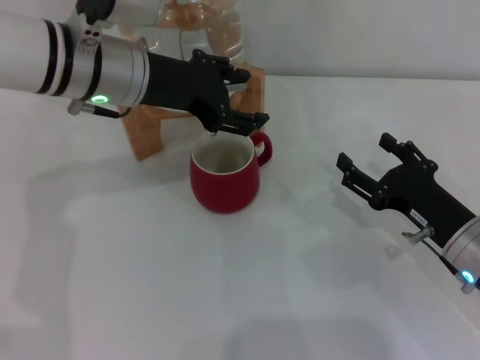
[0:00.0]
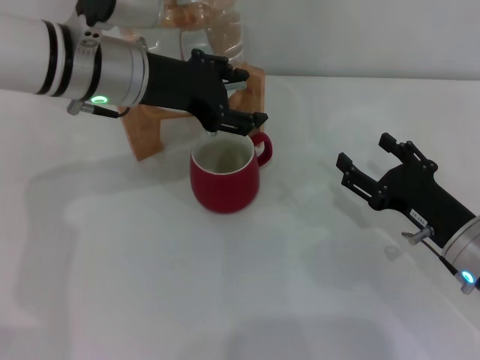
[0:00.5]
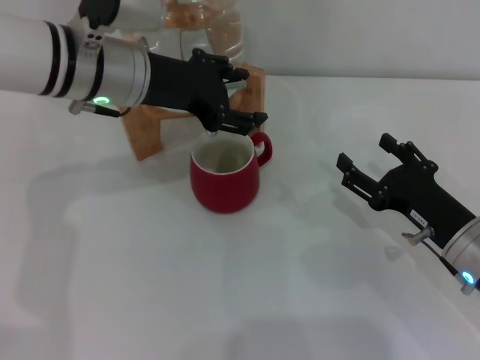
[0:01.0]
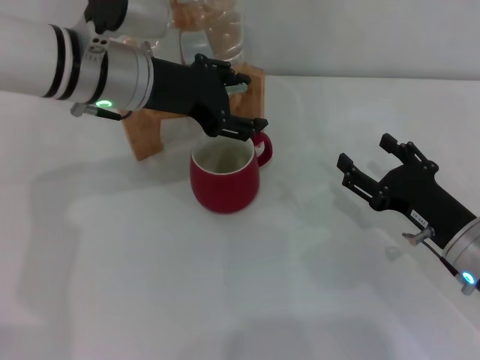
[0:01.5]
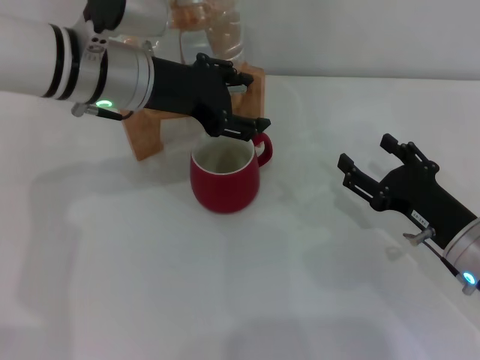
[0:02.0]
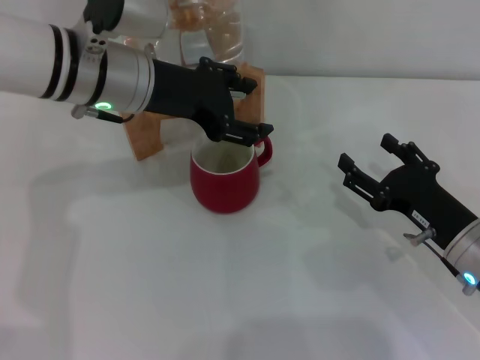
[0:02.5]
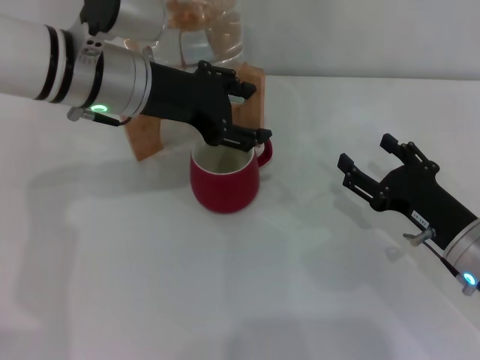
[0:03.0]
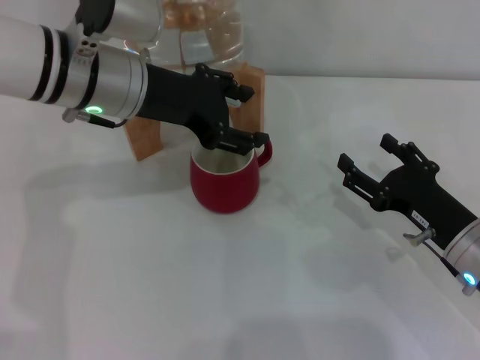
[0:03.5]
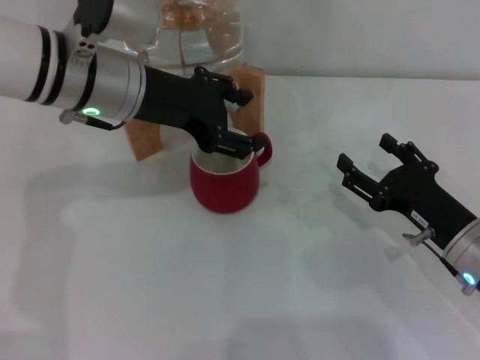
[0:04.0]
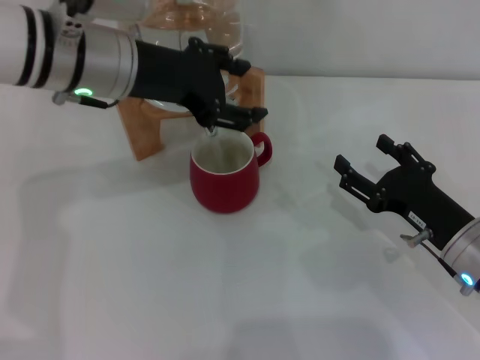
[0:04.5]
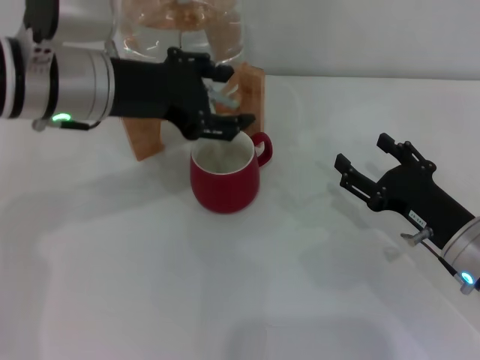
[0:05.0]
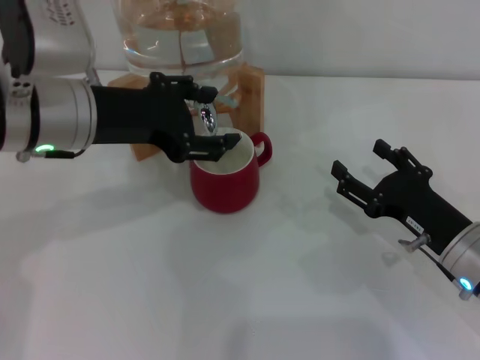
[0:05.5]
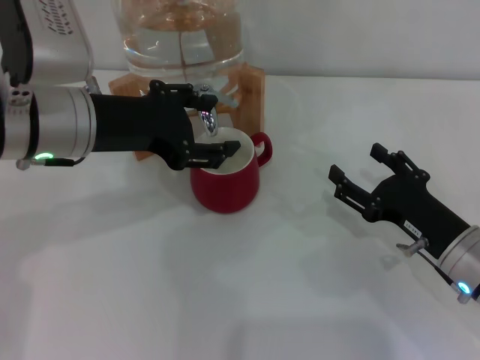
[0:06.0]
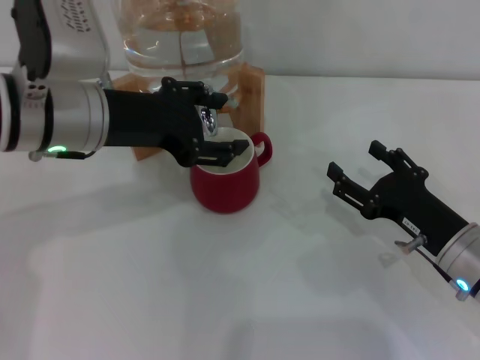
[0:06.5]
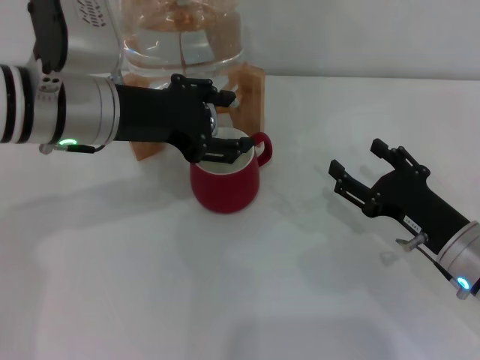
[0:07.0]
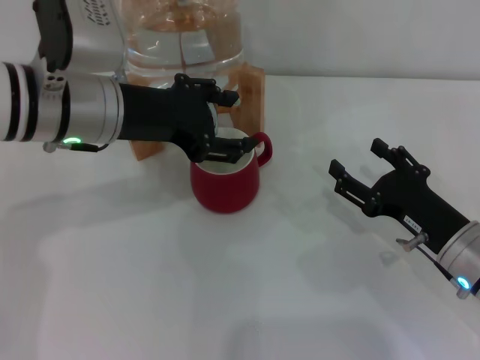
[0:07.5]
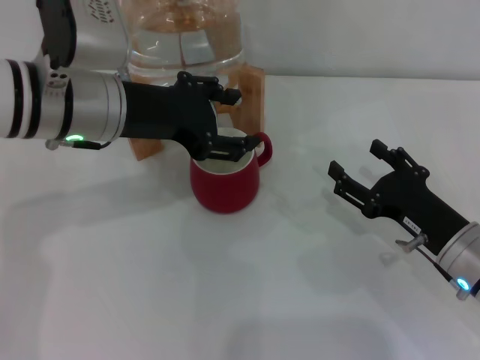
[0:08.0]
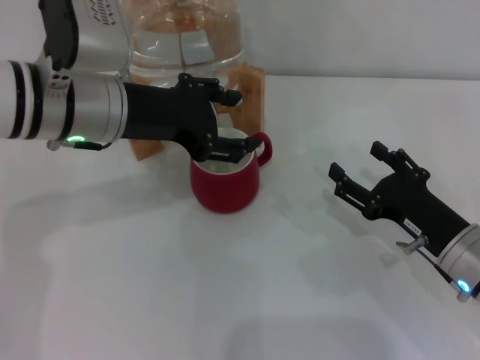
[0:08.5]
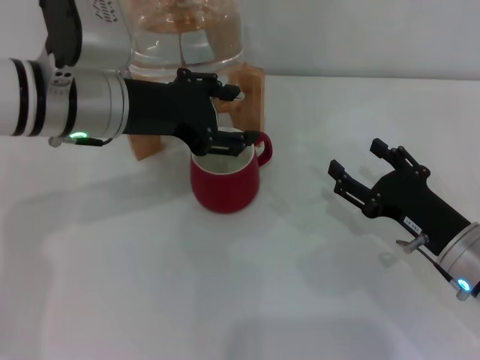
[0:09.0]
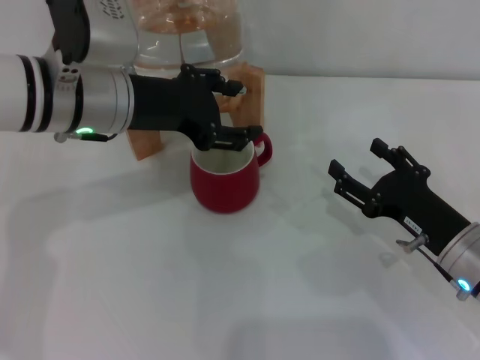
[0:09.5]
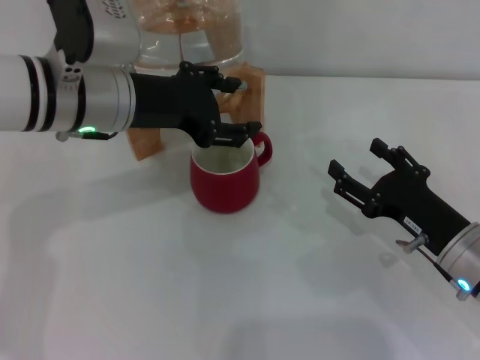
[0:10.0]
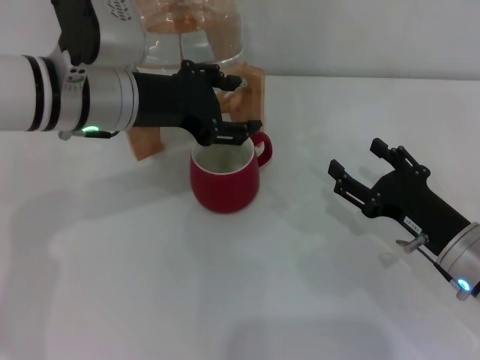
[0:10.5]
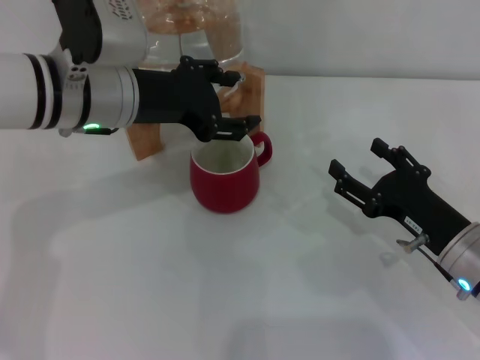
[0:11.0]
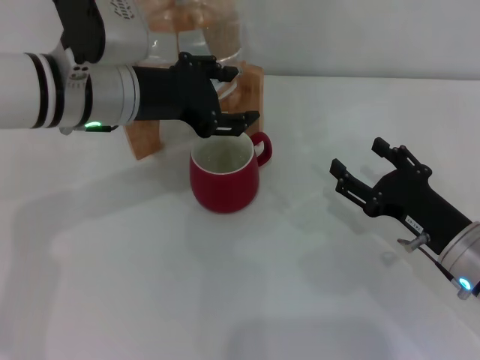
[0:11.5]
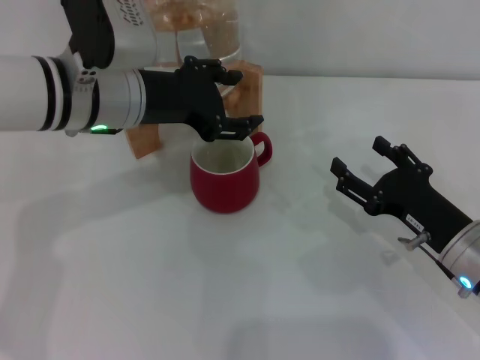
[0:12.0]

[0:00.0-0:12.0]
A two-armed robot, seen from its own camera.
Task of the whole recording: the right gripper pick up the red cup and place it horizontally under the faucet, the left gripper turn on the faucet to fill the cup, and then turn off the faucet.
Step, 0:00.0 to 0:05.0: Open the dispenser valve and fill the cup with water with the left gripper.
0:00.0 to 0:02.0: Neither gripper changes place.
0:02.0 to 0:04.0: The grippers make only small movements.
0:04.0 to 0:06.0: The left gripper moves approximately 5 cm.
0:06.0 to 0:08.0: There are only small adjustments of the grippers.
0:08.0 to 0:10.0: The two grippers keep their place.
0:10.0 to 0:12.0: Both grippers stay about where they are.

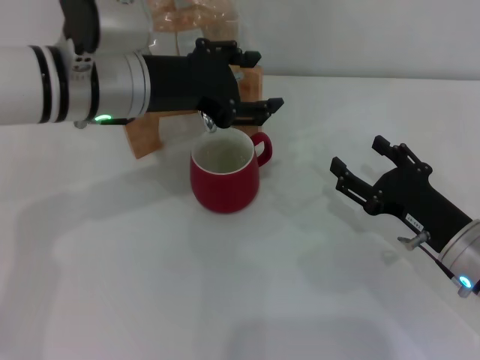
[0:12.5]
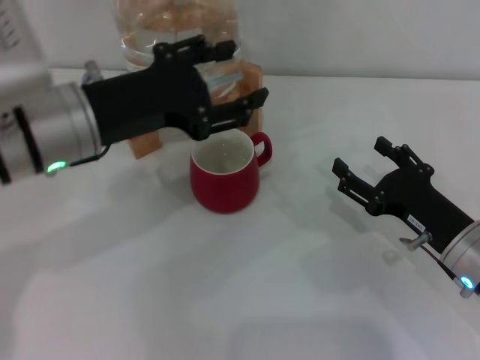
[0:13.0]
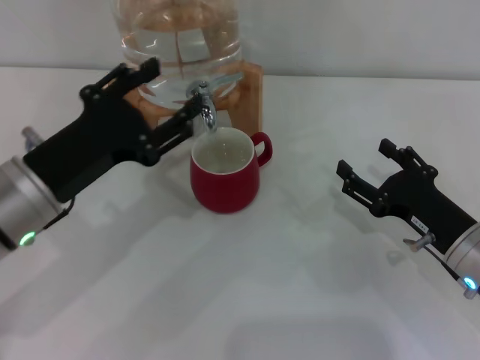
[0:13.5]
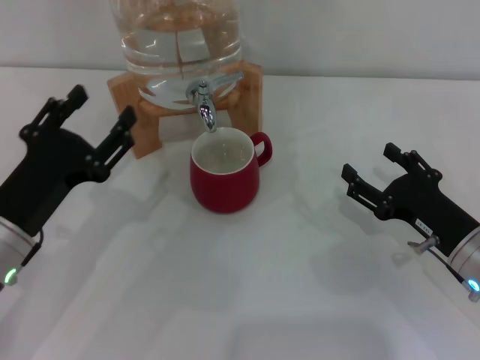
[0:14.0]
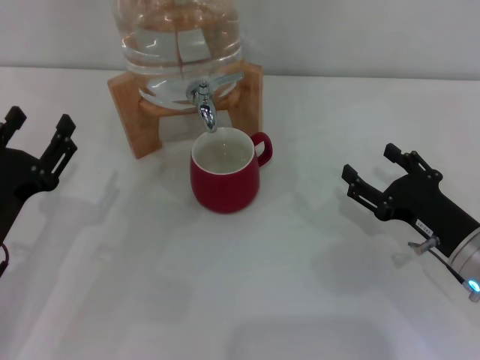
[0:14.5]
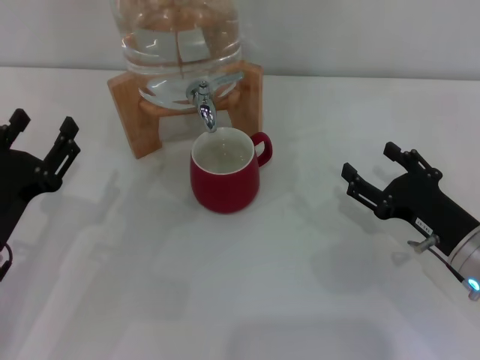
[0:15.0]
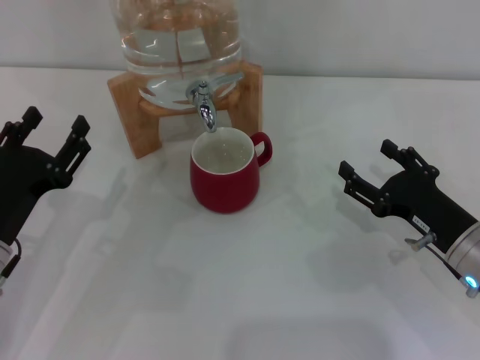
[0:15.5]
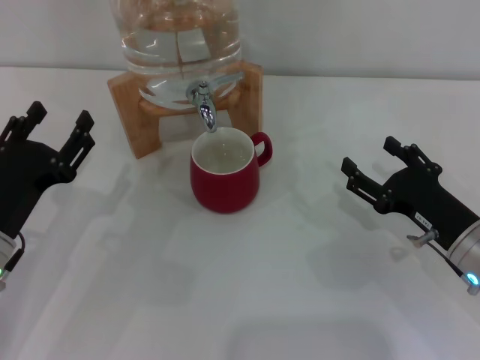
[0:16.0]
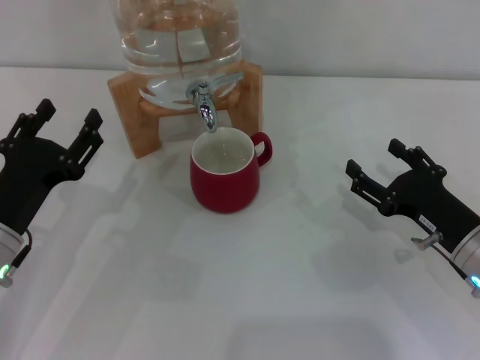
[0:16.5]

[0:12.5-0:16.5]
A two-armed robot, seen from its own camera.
Task of the whole recording: the right gripper pick up the red cup and place it horizontally under the faucet, the left gripper turn on the faucet to fill the cup, and then turn off the faucet.
0:12.5 to 0:14.5: The left gripper travels backward, downward and to the left by approximately 25 cm.
0:14.5 to 0:16.5: The grippers move only a little.

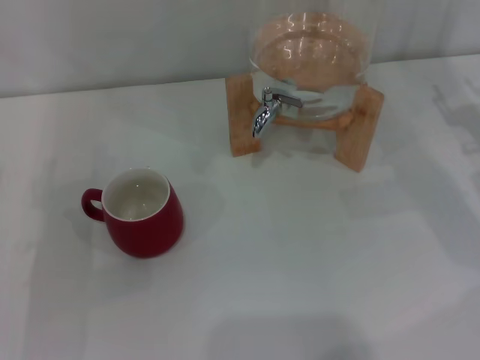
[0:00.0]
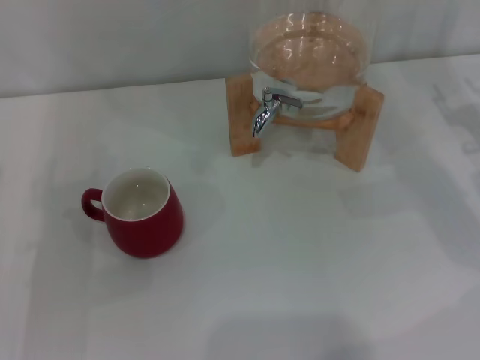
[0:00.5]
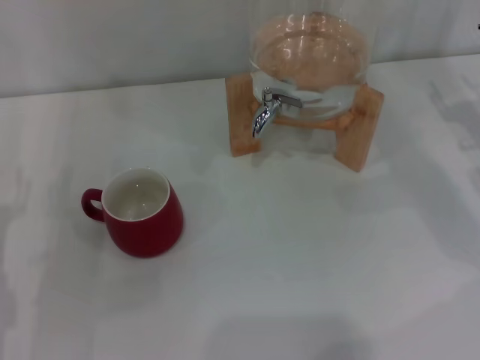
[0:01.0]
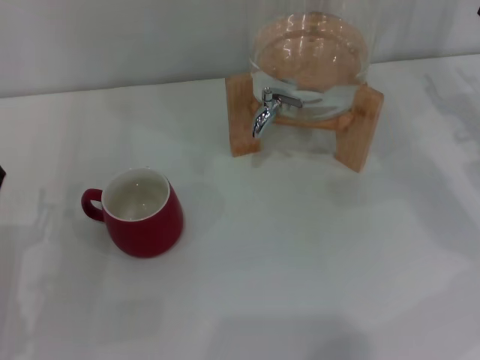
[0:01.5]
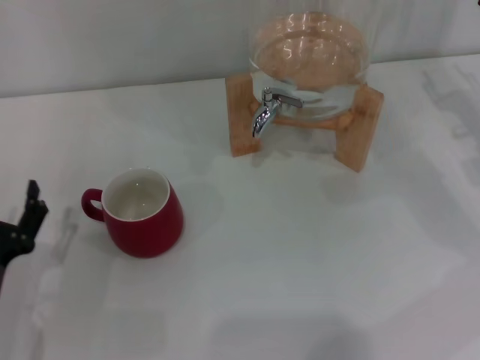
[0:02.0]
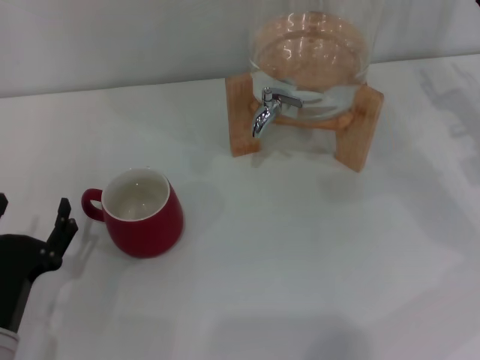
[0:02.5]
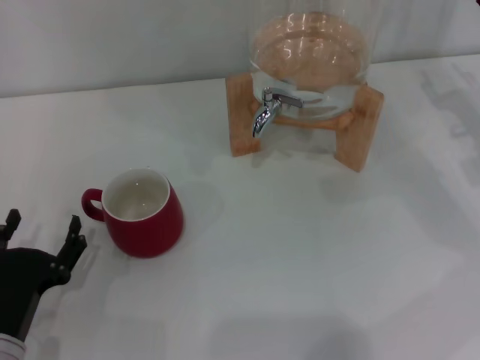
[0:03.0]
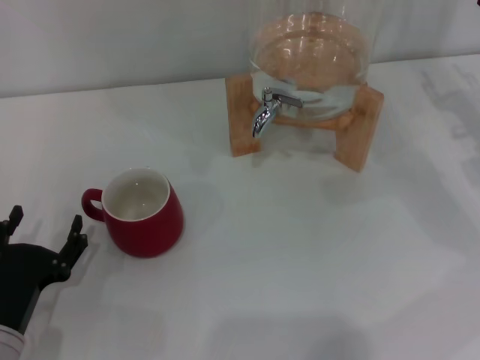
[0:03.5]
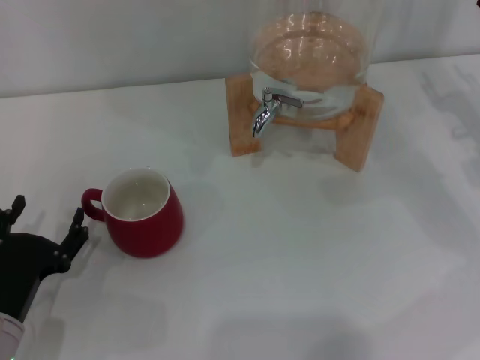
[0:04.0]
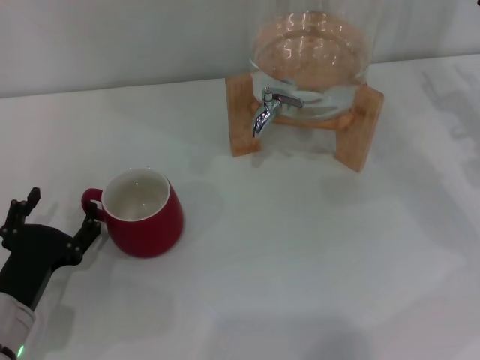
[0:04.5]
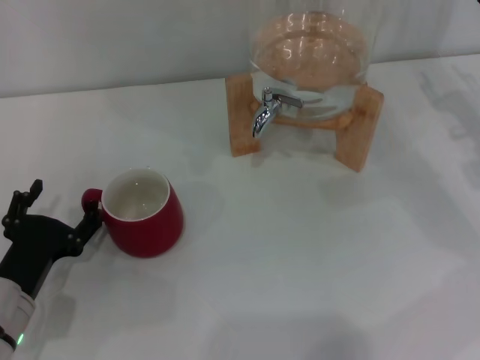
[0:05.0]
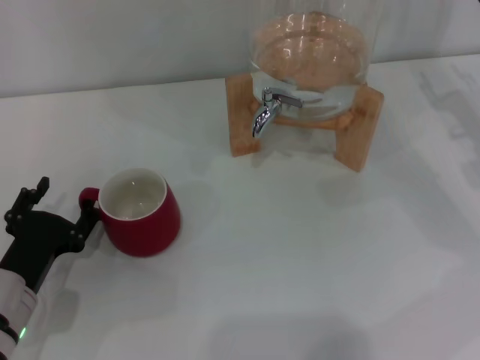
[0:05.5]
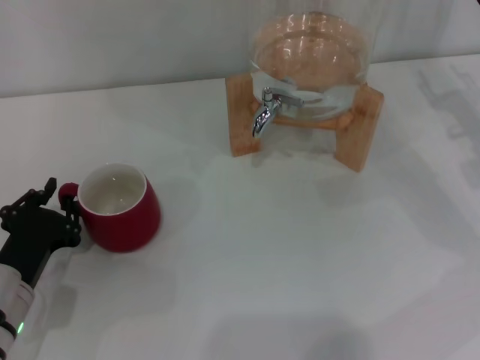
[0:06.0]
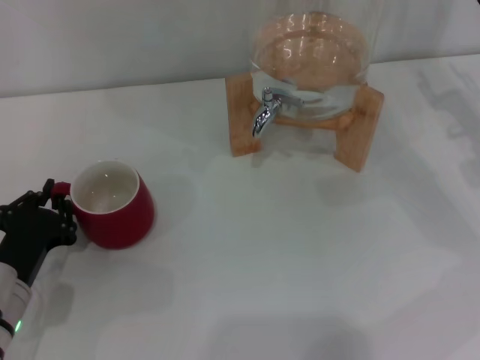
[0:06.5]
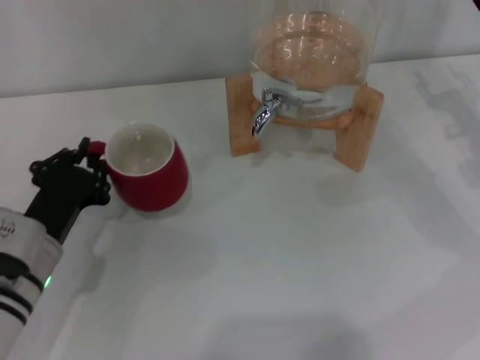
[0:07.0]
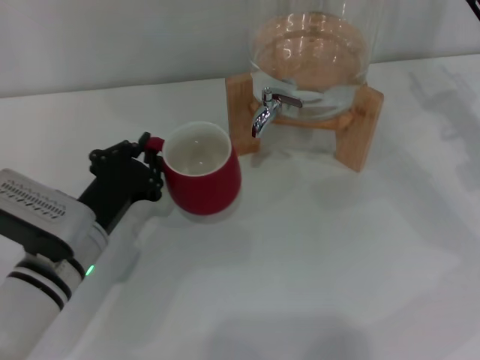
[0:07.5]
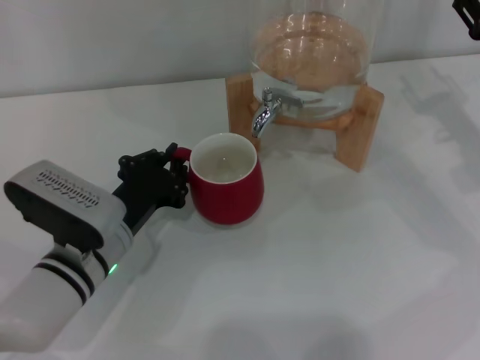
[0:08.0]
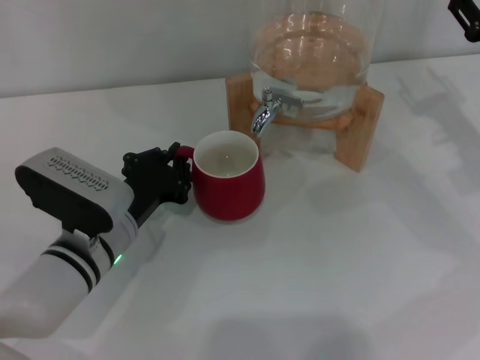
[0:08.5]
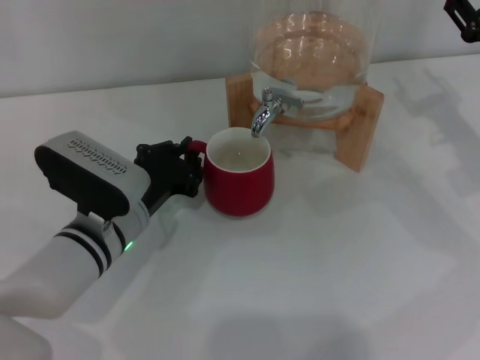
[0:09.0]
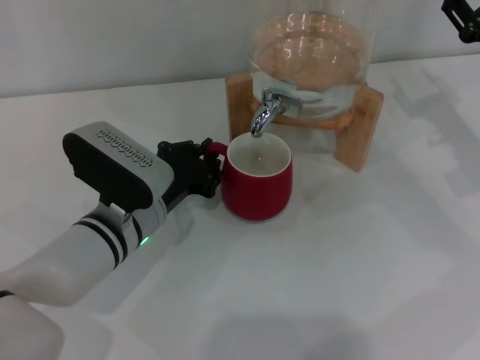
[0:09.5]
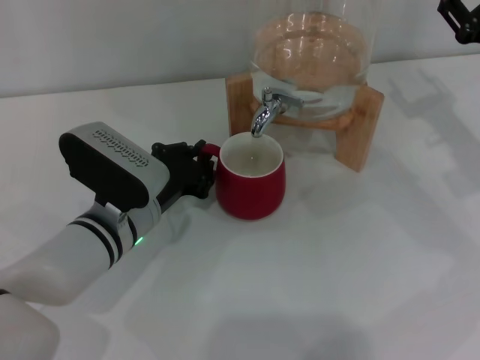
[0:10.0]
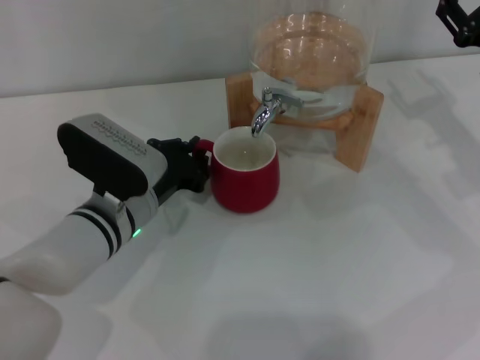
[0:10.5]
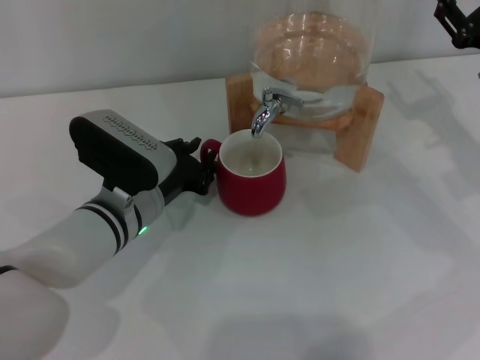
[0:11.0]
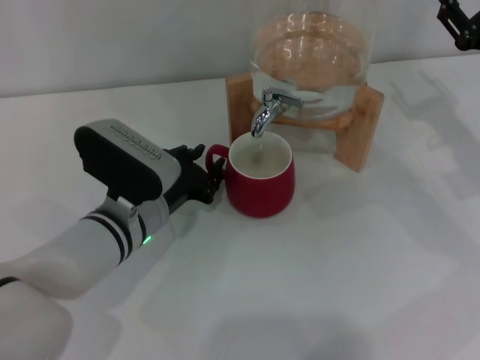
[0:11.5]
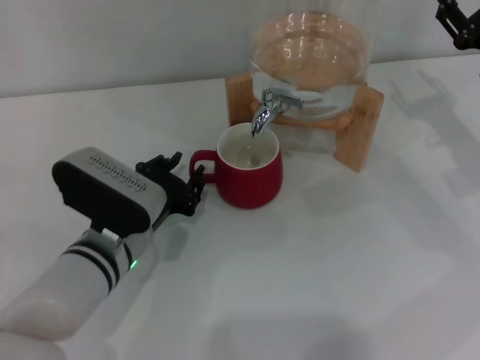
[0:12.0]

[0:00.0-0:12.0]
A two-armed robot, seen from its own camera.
Task of the whole recording: the left gripper pick up the red cup and place it horizontally under the faucet, the right gripper turn on the faucet to fill the cup, and then turn off the faucet.
0:00.0 to 0:02.0: The left gripper moves backward and downward, some 10 cm.
0:02.0 to 0:04.0: The grippers move only a little.
0:04.0 to 0:06.0: The left gripper closes.
0:06.0 to 0:08.0: The left gripper moves to the right, roughly 10 cm, and closes up.
0:08.0 to 0:10.0: The grippers stay close to where they were, moving slightly.
0:10.0 to 0:12.0: The left gripper opens up.
